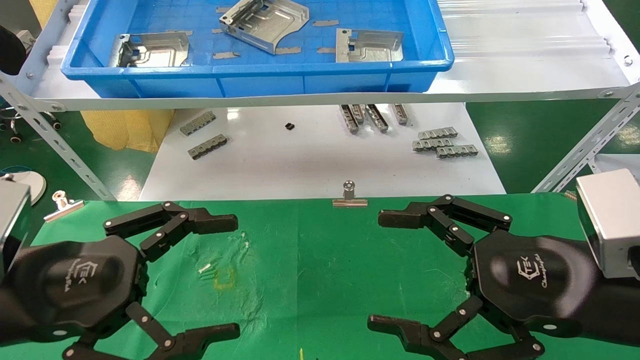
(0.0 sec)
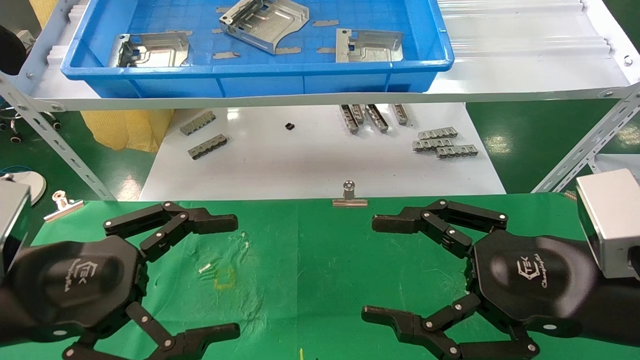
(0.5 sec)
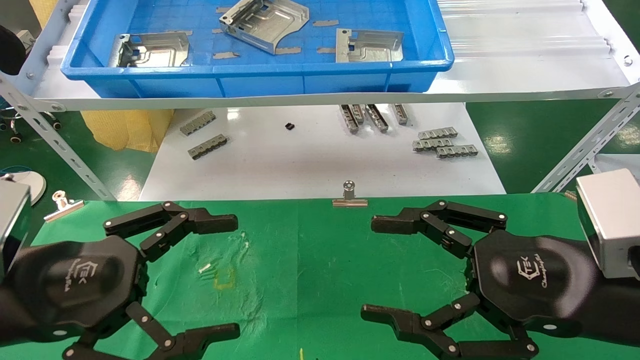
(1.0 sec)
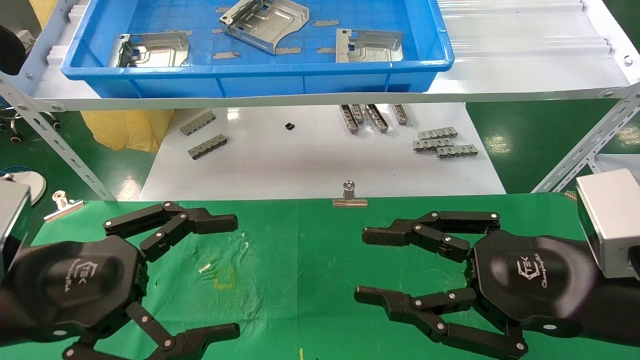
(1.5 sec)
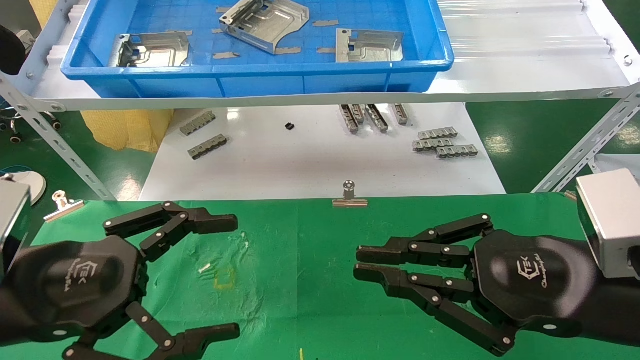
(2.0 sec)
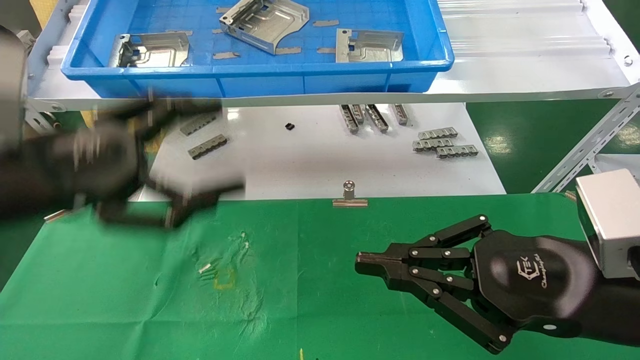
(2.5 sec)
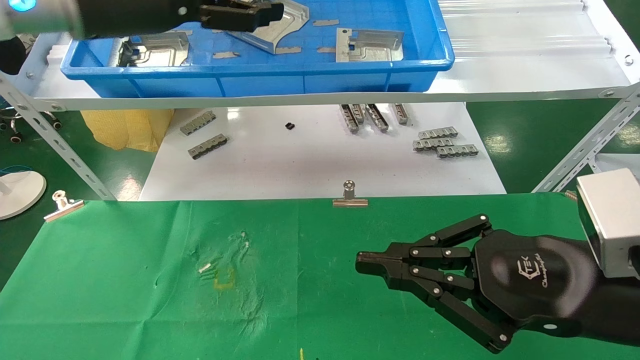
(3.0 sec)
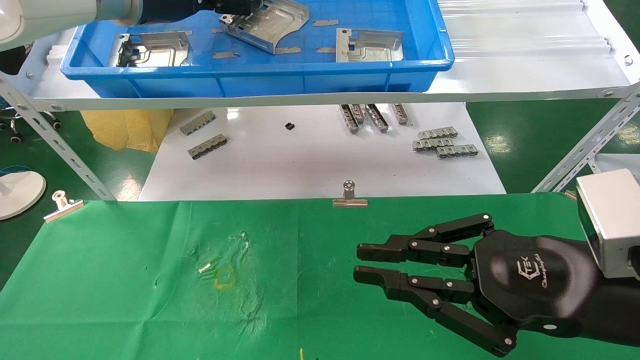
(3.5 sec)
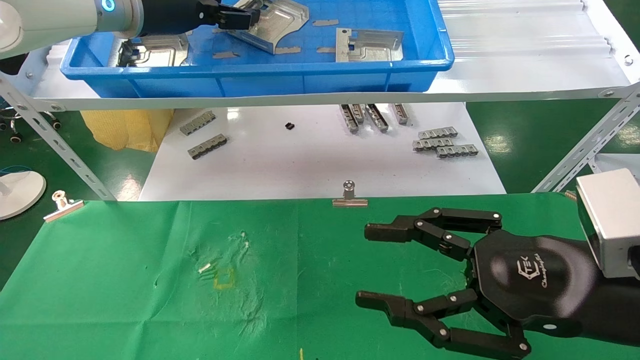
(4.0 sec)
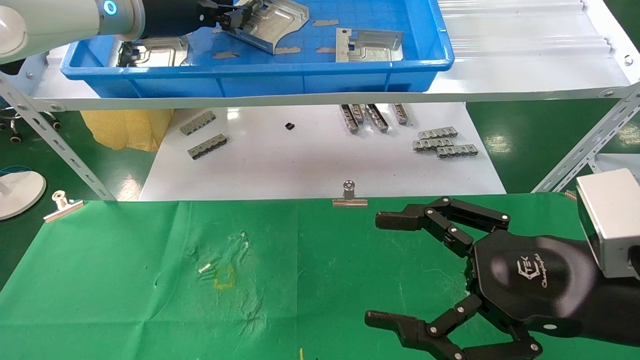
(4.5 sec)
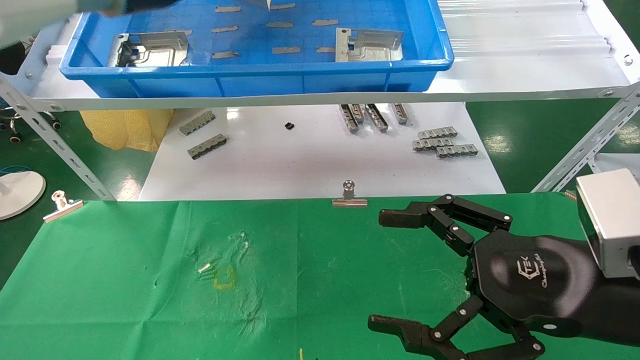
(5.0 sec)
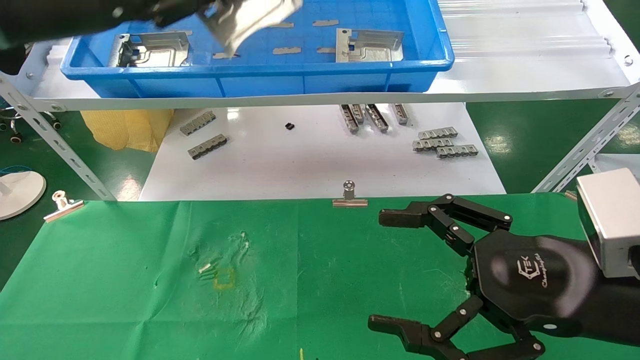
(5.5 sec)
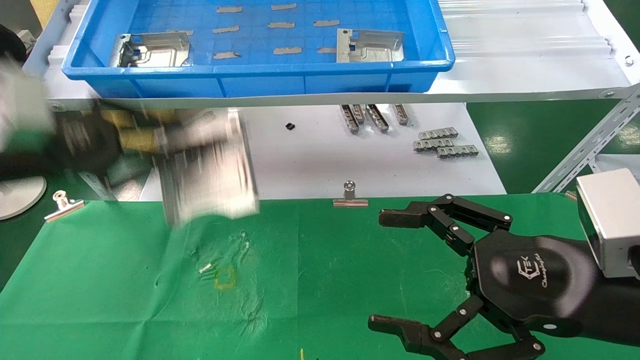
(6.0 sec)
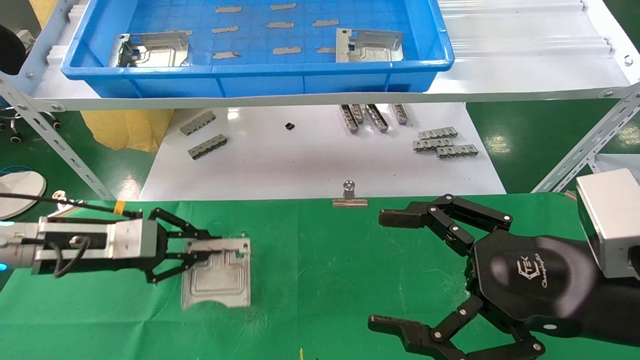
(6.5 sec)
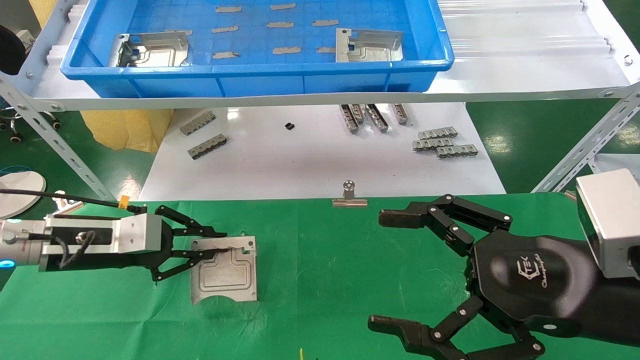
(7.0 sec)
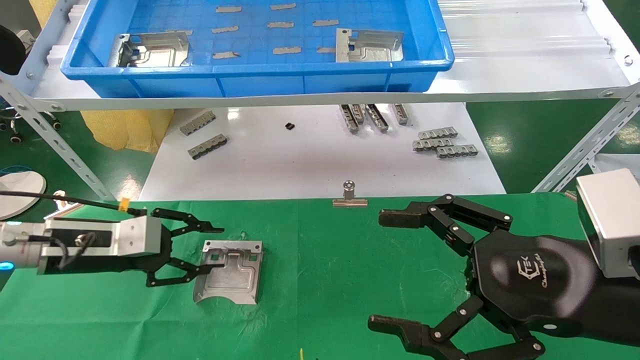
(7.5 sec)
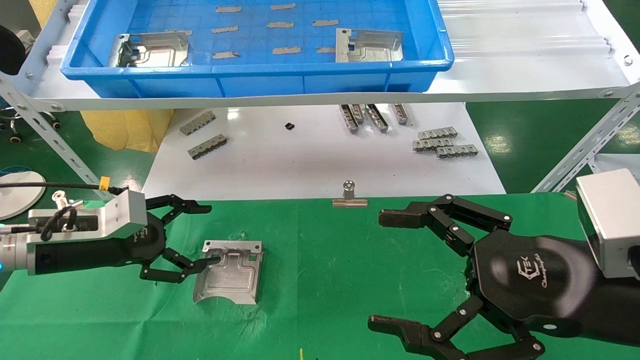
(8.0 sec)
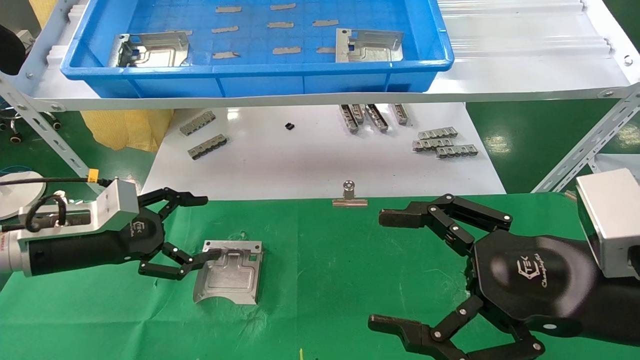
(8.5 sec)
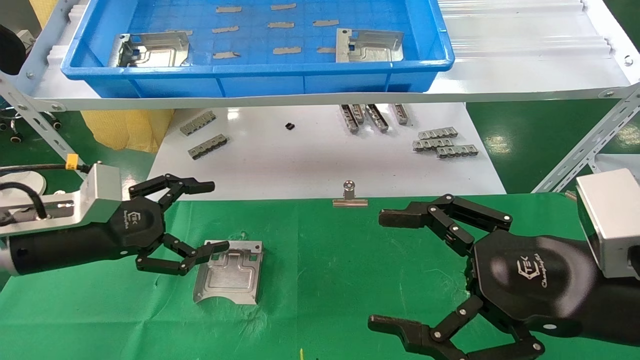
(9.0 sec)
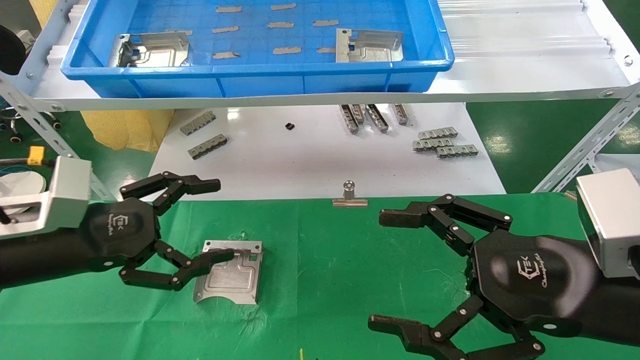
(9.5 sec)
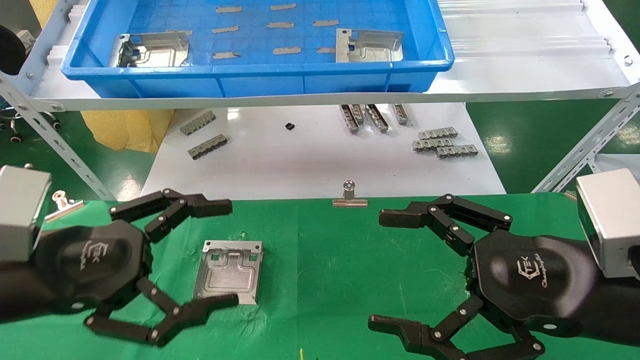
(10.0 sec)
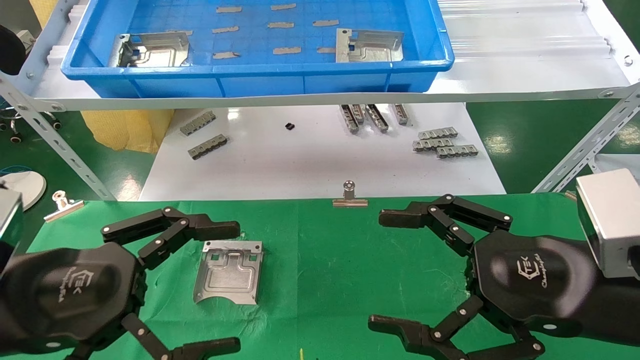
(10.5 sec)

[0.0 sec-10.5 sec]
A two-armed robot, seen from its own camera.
Task of the whole recording: use the mechanical arm to pick up the parts and place them on the table.
Step, 2.5 sec to 4.5 sec: Pick up the hard drive bracket from the feeding area.
Step, 5.0 sec to 7.5 sec: Place the hard drive bracket into the box.
0.0 sec to 2.0 sec: The right gripper closes its fingers.
2.0 sec to 4.0 sec: The left gripper heads forward and upward, covering approximately 35 cm.
4.0 sec to 6.5 sec: The left gripper travels downward and to the left by some 30 cm, and closes its fingers. Meanwhile the right gripper opens.
6.5 sec to 8.5 sec: The left gripper opens its fingers.
8.5 sec to 10.5 sec: The left gripper is displaced backward by about 15 cm.

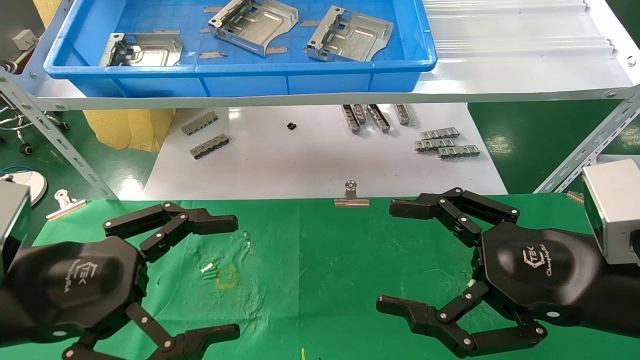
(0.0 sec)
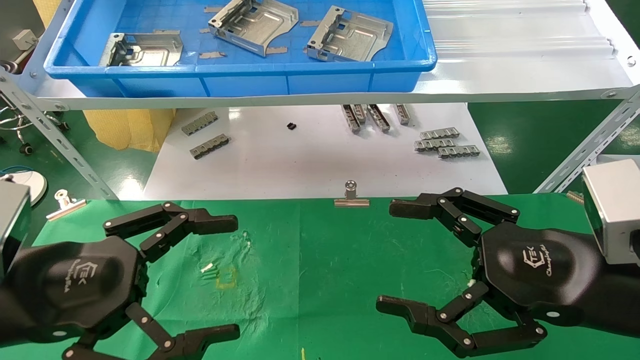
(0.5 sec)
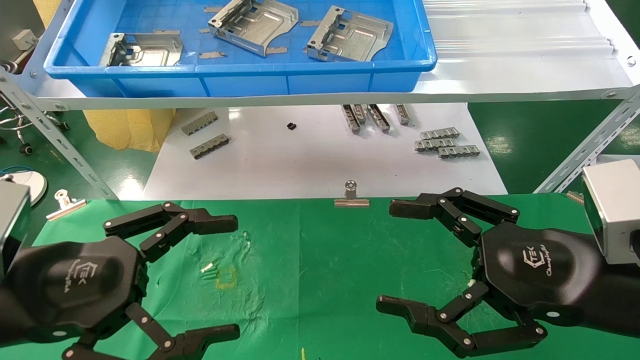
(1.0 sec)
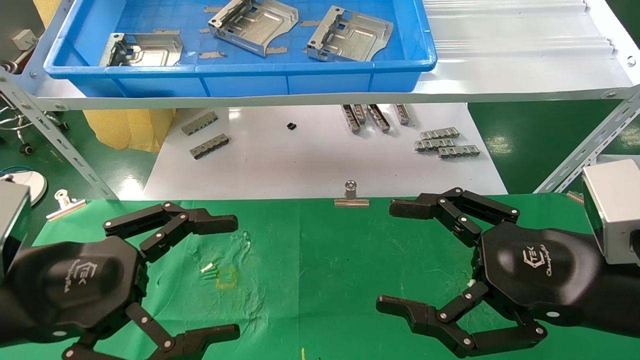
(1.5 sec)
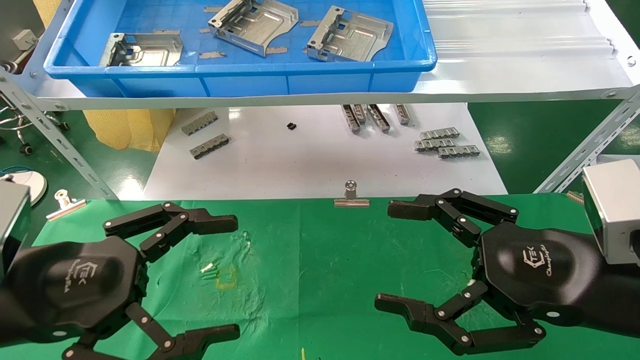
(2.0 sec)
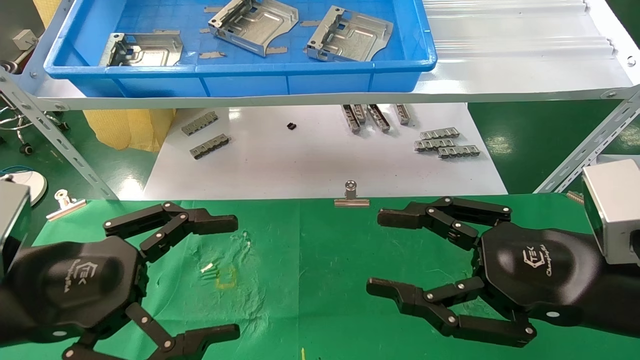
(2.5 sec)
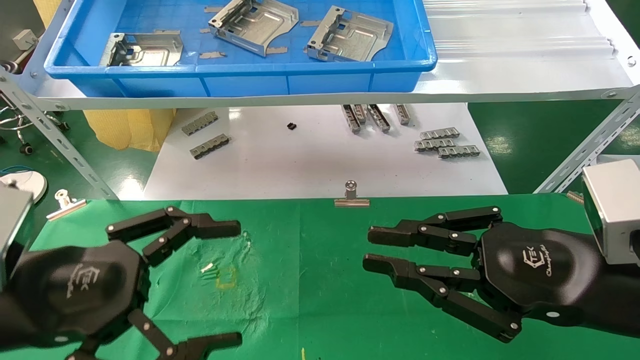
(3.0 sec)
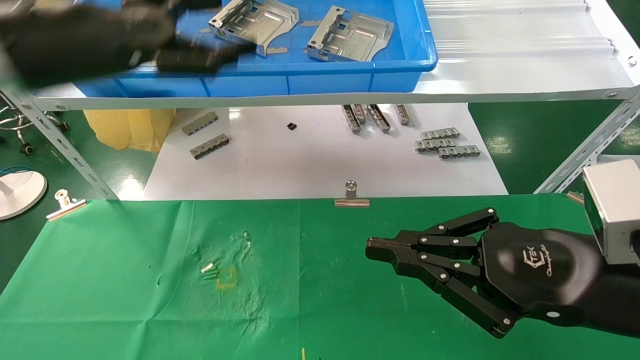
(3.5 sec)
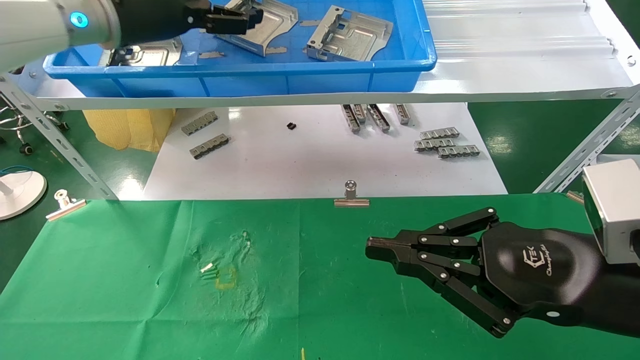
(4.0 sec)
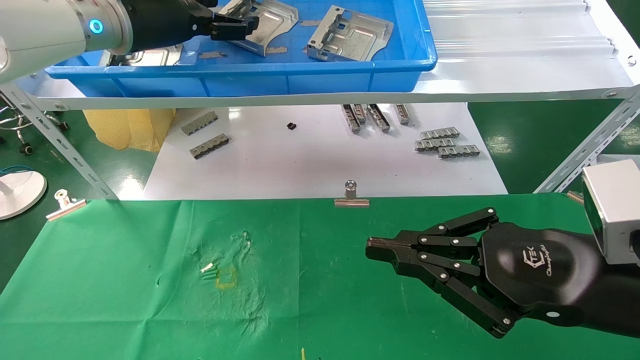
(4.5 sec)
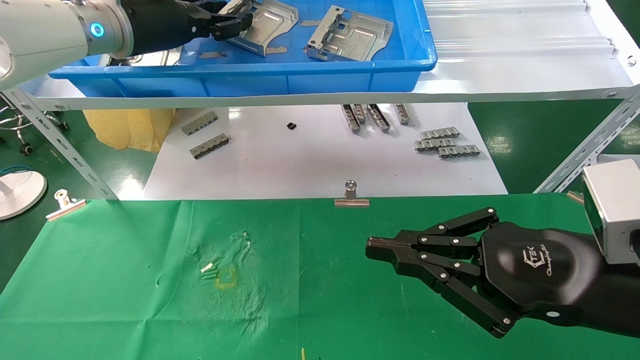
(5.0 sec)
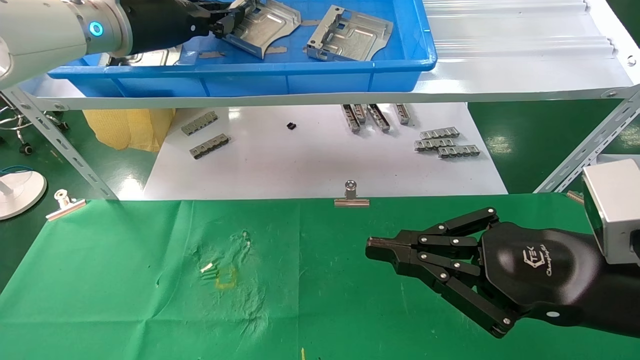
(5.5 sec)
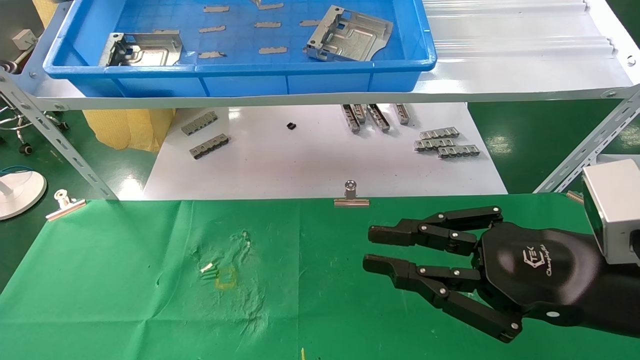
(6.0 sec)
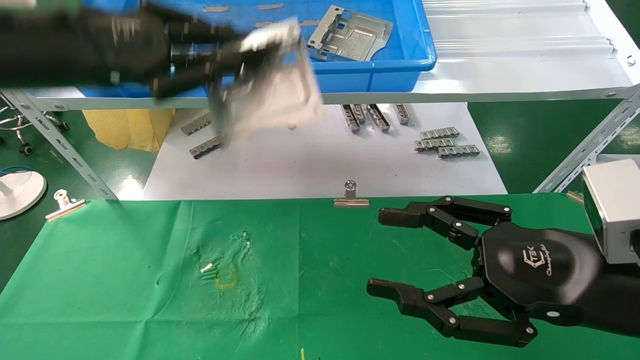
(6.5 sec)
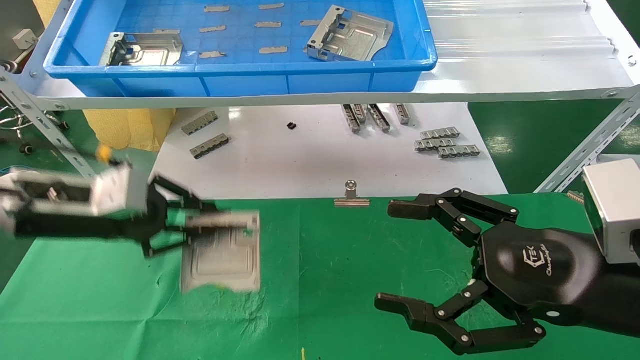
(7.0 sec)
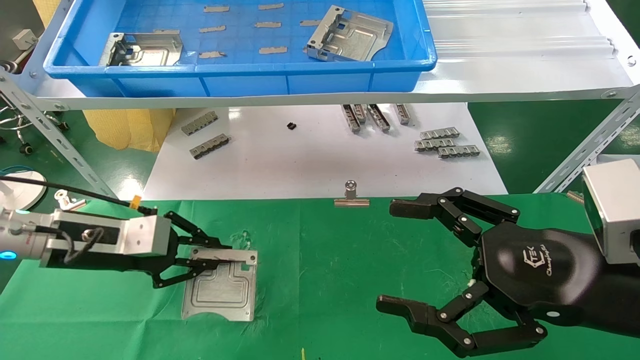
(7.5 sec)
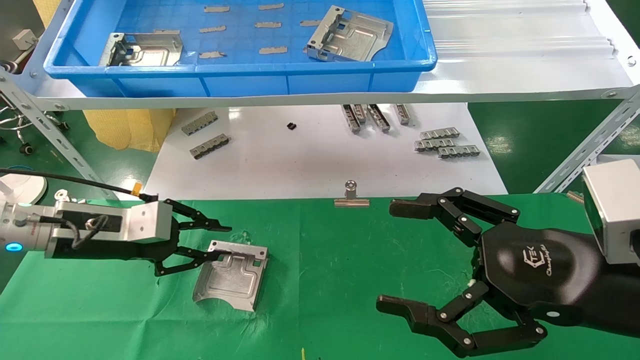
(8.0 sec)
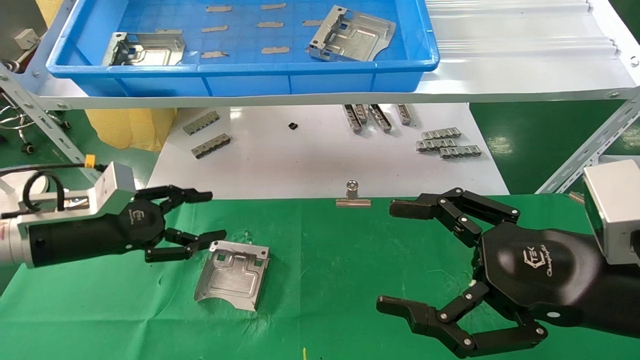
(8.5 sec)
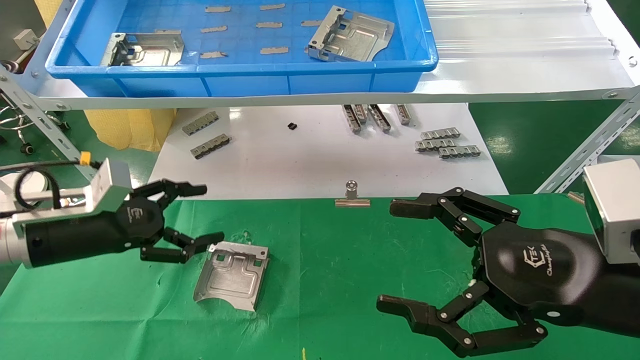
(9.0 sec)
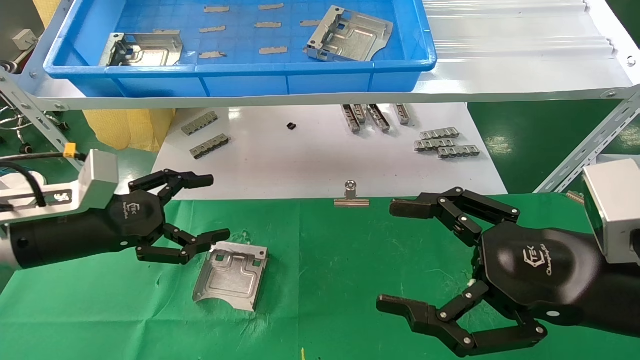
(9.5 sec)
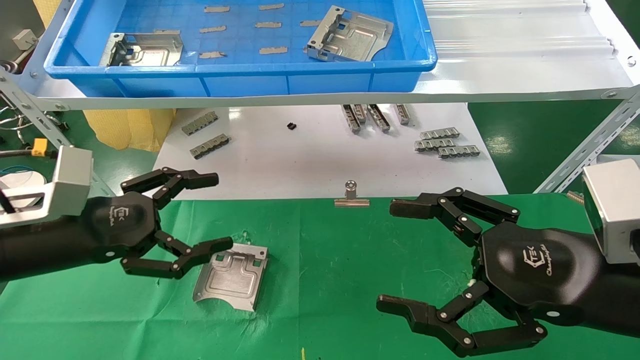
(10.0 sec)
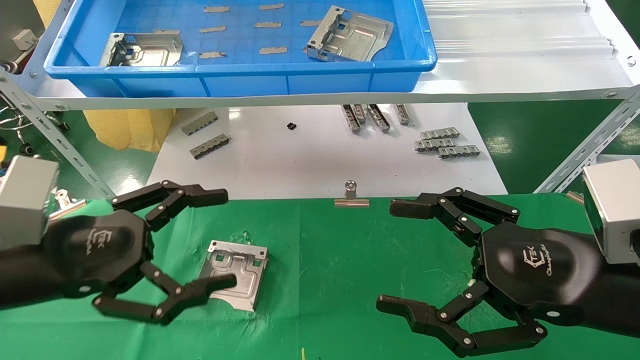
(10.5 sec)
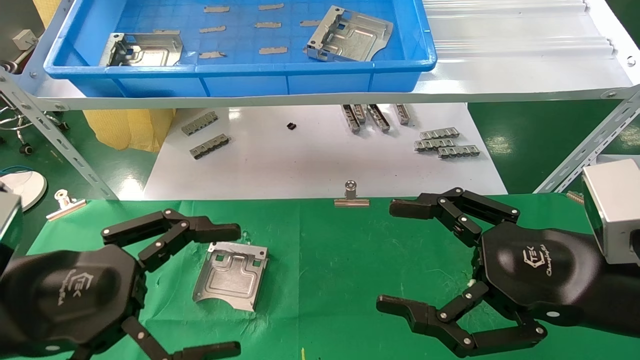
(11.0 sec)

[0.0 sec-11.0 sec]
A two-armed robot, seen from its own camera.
Task of the whole recording: use the mechanical arm to pick up the parts and place them on the table.
Step, 3.5 sec to 5.0 sec: Pick up the hard drive bracket from the feeding area.
Step, 5.5 sec to 8.0 sec: Place the hard drive bracket into the box.
0.0 sec to 2.0 sec: Both grippers stay about where they are.
2.0 sec to 3.5 sec: The left gripper heads upward and forward, covering roughly 25 cm. The right gripper closes its fingers.
3.5 sec to 5.5 sec: The left gripper moves forward, approximately 10 cm, and closes.
5.5 sec to 7.5 sec: The right gripper opens. The left gripper goes some 25 cm downward.
7.5 sec to 9.0 sec: The left gripper opens.
9.0 sec to 11.0 sec: The left gripper goes approximately 15 cm backward.
